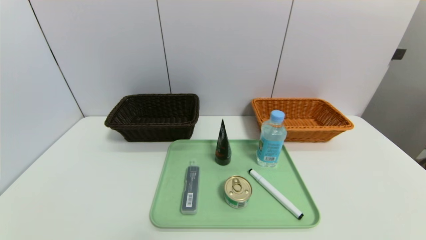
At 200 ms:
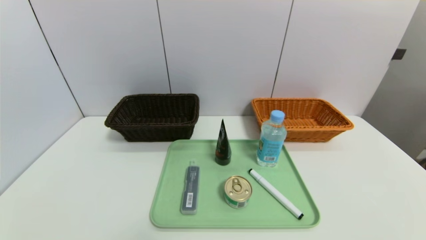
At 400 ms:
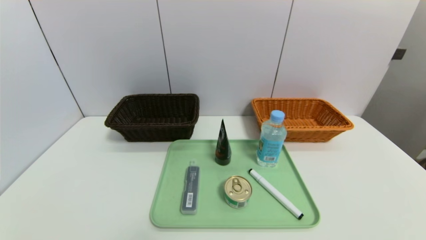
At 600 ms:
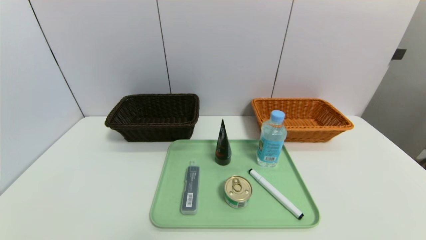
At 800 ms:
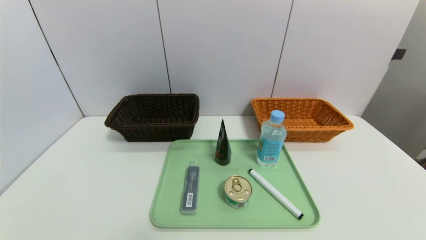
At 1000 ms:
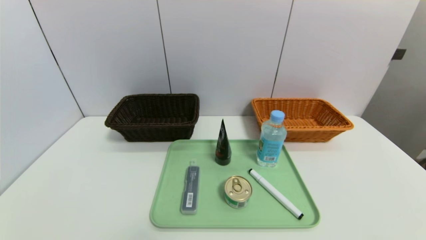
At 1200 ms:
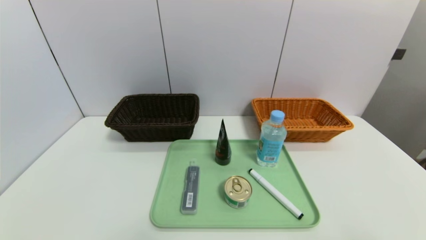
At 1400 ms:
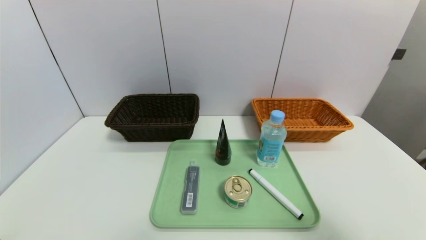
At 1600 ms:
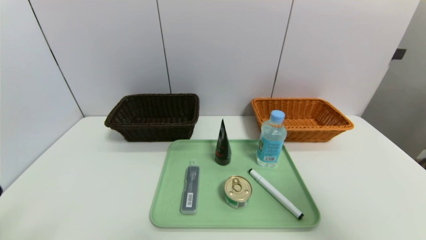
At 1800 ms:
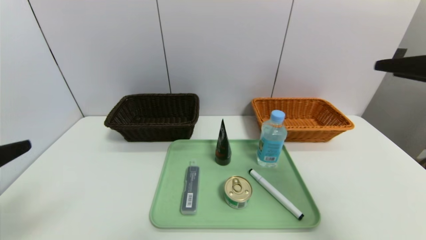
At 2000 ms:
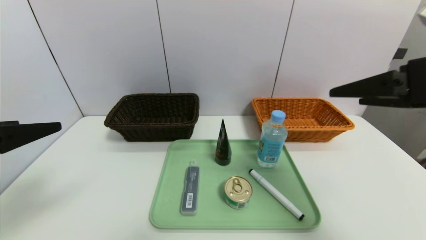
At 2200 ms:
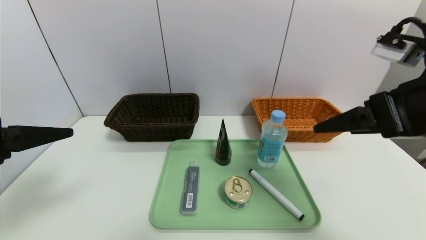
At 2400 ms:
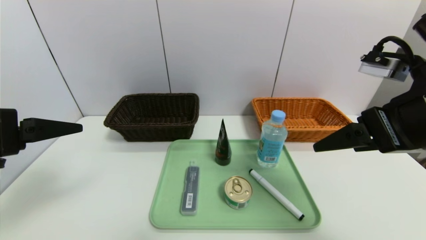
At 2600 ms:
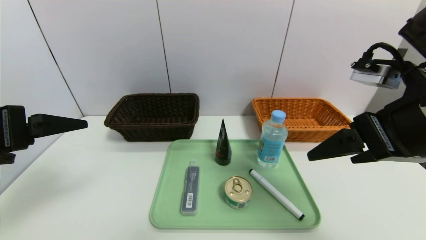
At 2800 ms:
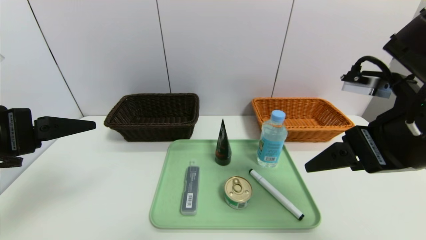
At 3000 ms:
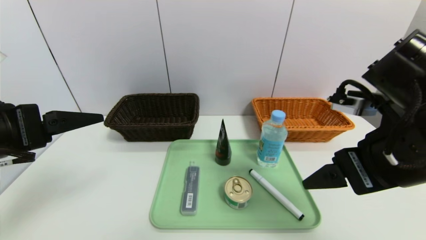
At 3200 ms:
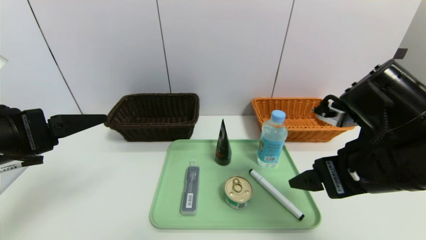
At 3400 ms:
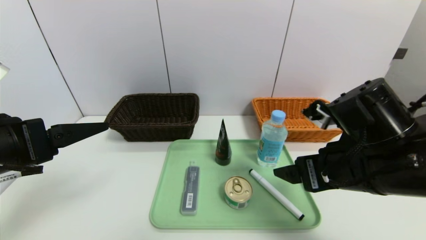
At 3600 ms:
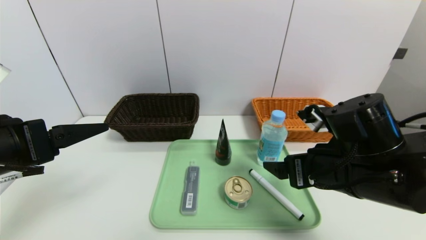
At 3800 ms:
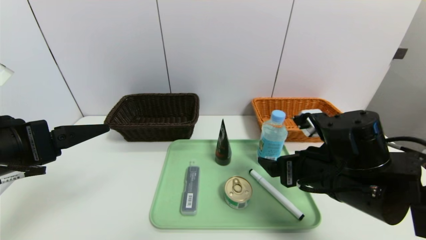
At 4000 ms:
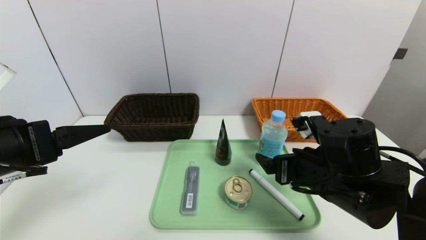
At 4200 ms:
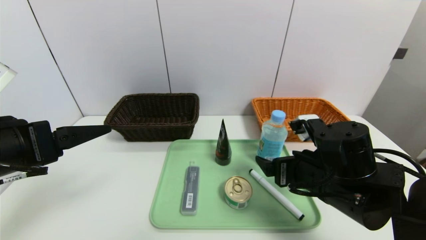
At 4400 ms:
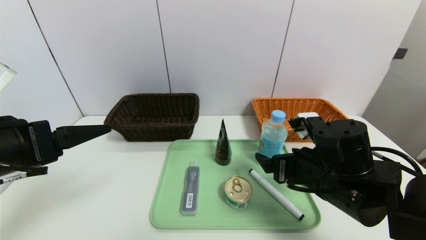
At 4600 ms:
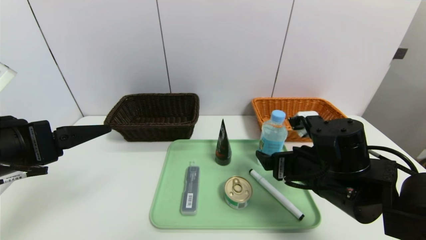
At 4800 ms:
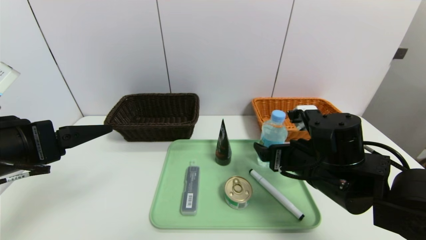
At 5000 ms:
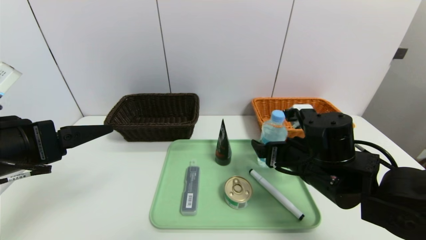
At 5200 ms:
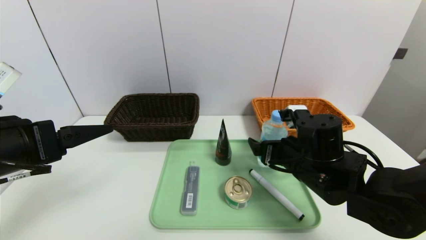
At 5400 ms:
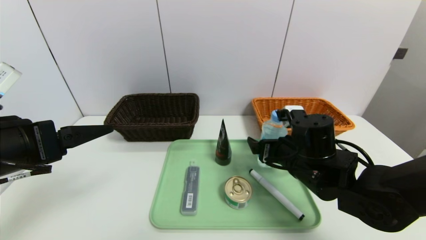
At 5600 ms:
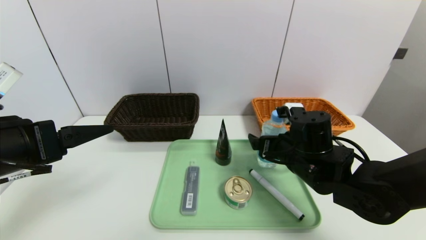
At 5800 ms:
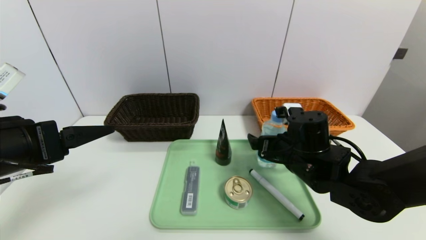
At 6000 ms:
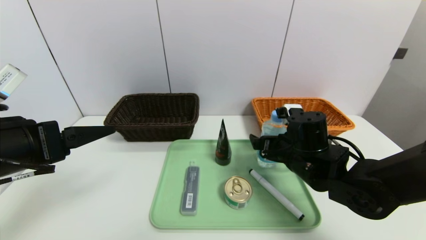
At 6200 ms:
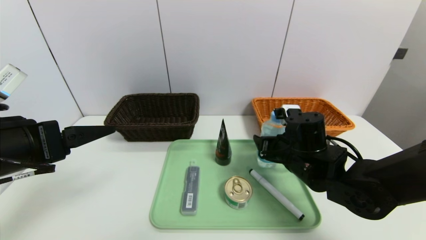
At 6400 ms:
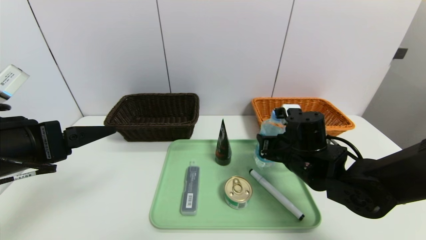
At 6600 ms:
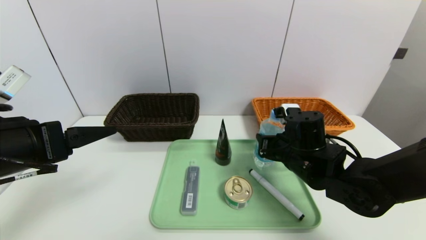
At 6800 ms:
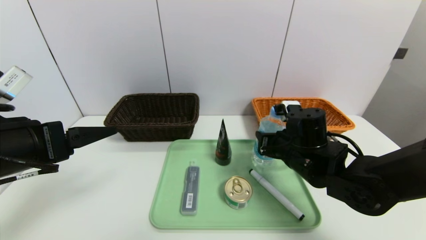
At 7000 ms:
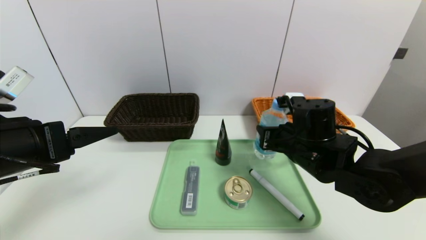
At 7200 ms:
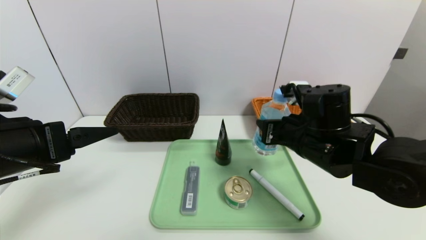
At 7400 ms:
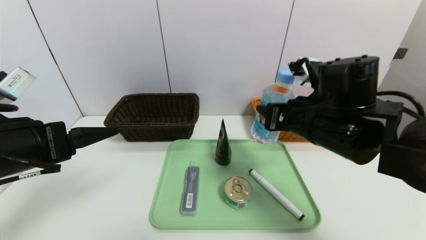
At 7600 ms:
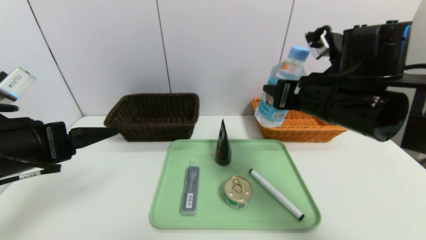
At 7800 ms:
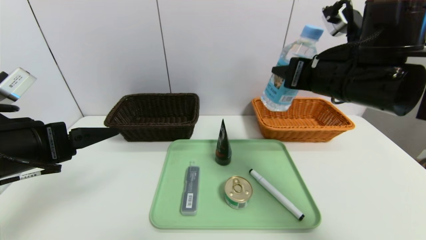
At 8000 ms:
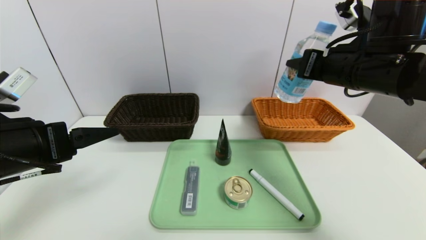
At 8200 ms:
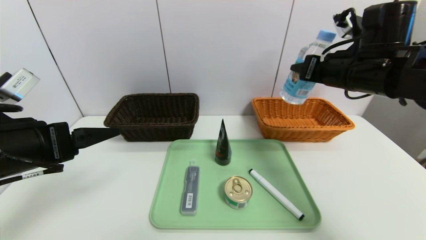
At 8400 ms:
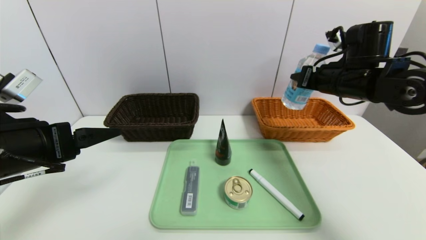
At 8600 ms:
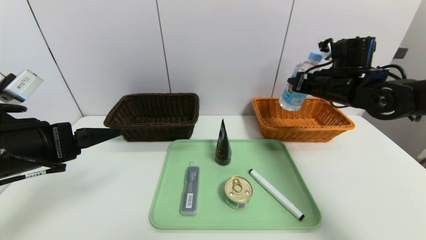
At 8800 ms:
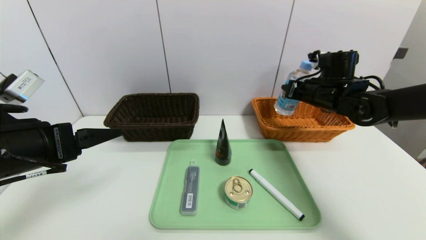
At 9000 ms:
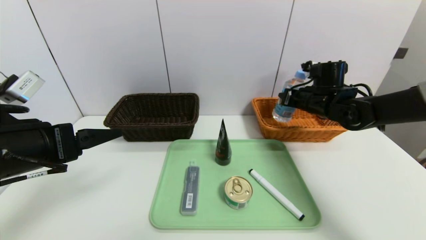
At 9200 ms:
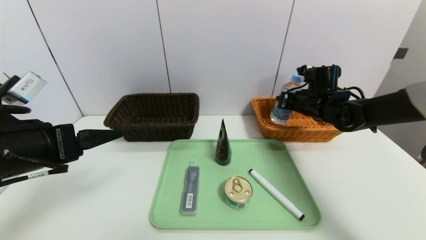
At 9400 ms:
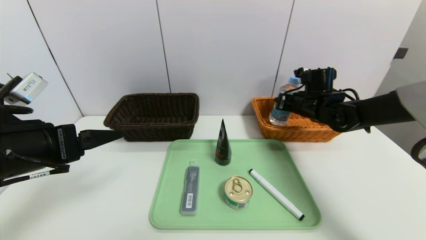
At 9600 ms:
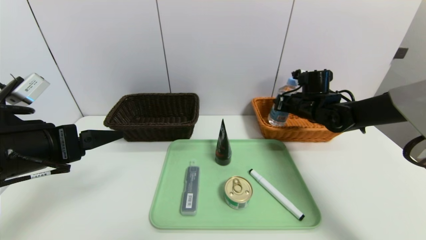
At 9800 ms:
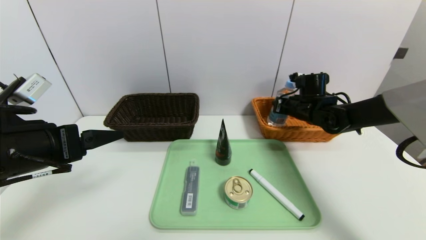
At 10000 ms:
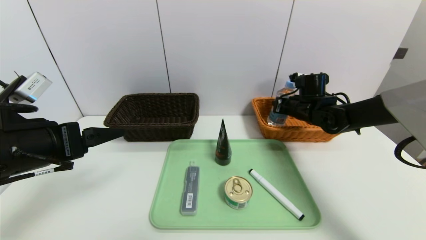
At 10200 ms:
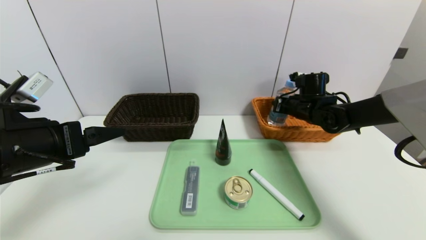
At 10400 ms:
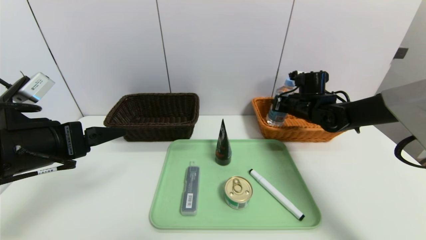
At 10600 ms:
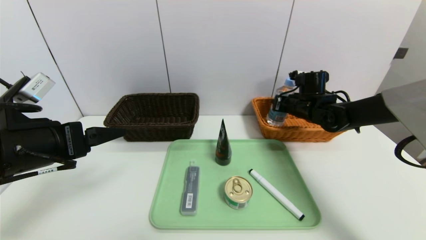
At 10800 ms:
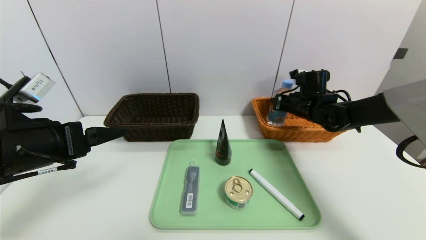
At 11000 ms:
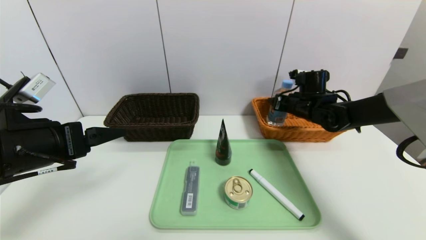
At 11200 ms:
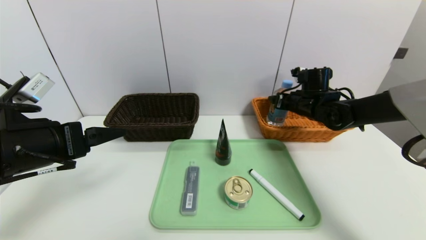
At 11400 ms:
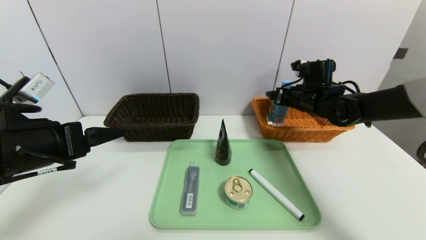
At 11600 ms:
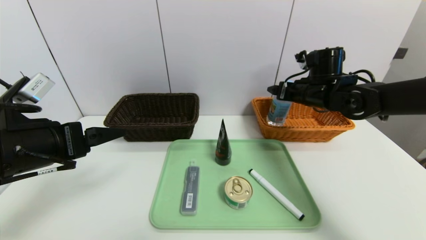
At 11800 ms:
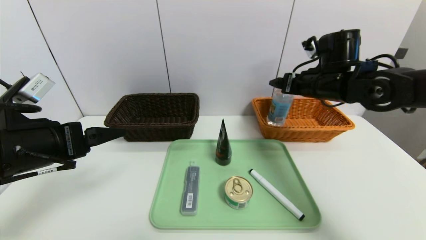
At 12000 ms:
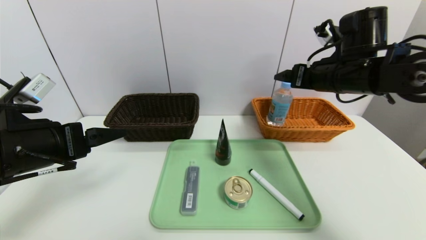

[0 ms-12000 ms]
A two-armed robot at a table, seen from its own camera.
Task of the whole recording: place the food in the right basket with the right gripper, and place the non food items in the left basket with the left gripper.
Step, 0 ms to 11600 ms: Grasp the soda water and put it in the right basket.
0 ms to 1600 ms: The right gripper travels upward and forward by about 30 cm. Meanwhile the left gripper moves upward, roughly 20 cm.
1600 ms to 3000 ms: The right gripper is displaced to the left, forward and downward by roughly 15 cm. Meanwhile the left gripper heads forward, covering roughly 15 cm.
3000 ms to 4400 ms: The right gripper moves downward, some 10 cm.
4400 ms to 6000 ms: The right gripper heads forward, covering about 5 cm.
6000 ms to 7600 ms: The right gripper travels upward by about 15 cm, and closes its fingers.
7600 ms to 9000 ms: The right gripper heads forward, downward and to the right, covering roughly 20 cm.
9000 ms to 10400 ms: There are only small adjustments of the grippers.
10400 ms to 12000 ms: The right gripper heads upward and backward, covering some 15 cm, and opens.

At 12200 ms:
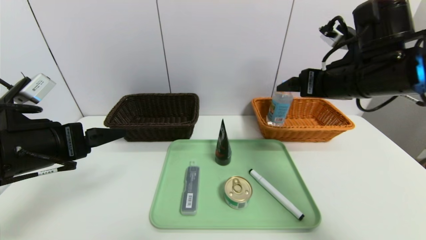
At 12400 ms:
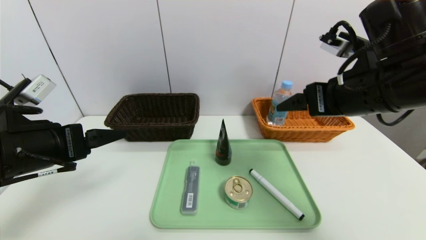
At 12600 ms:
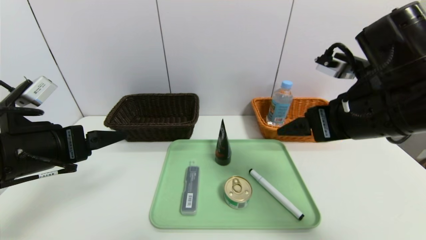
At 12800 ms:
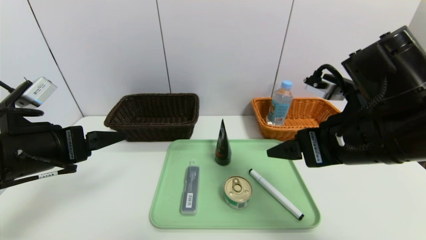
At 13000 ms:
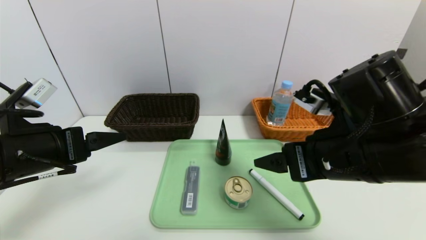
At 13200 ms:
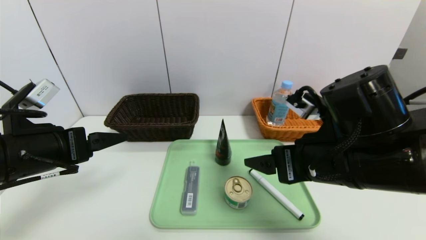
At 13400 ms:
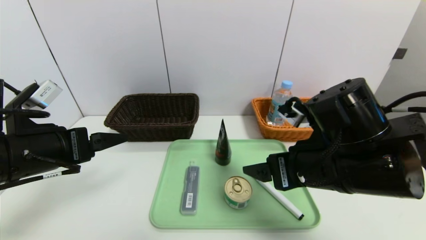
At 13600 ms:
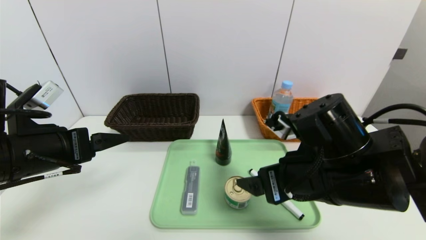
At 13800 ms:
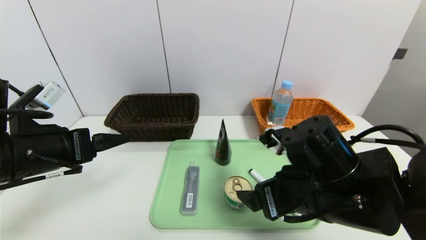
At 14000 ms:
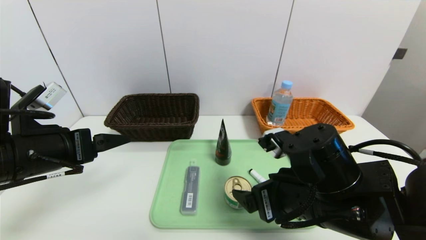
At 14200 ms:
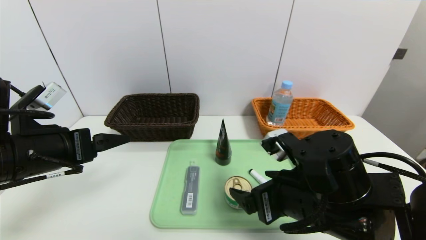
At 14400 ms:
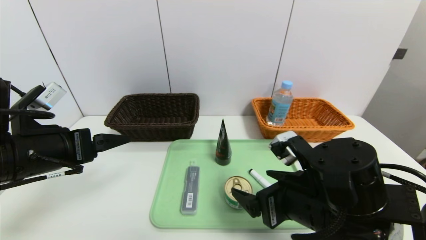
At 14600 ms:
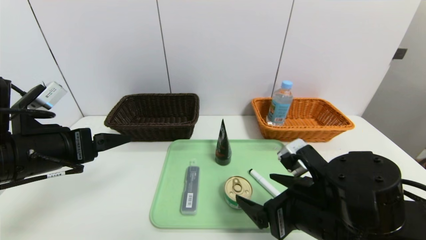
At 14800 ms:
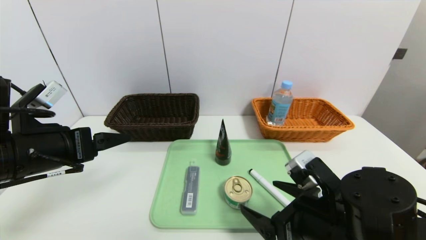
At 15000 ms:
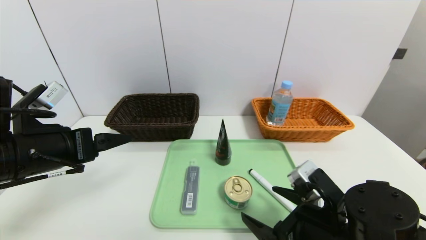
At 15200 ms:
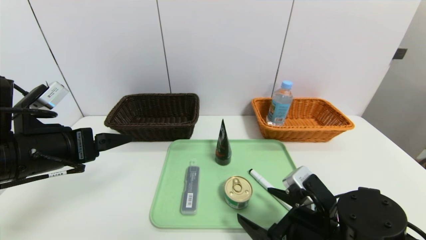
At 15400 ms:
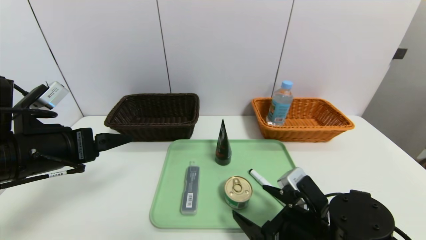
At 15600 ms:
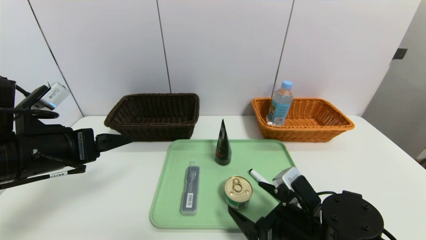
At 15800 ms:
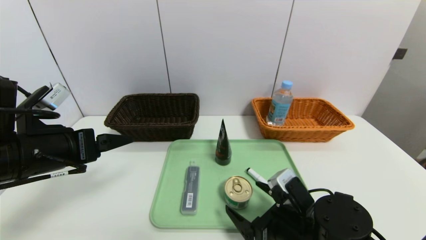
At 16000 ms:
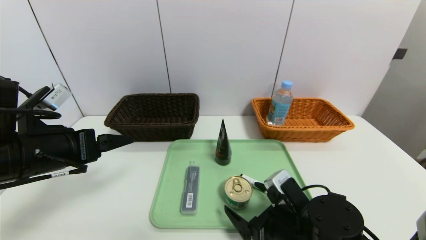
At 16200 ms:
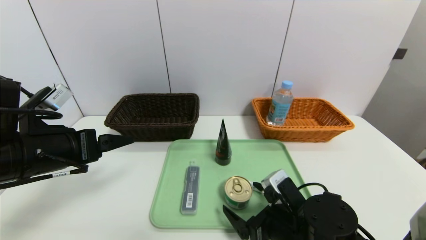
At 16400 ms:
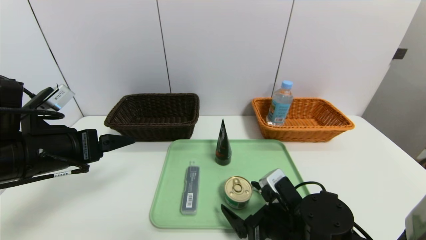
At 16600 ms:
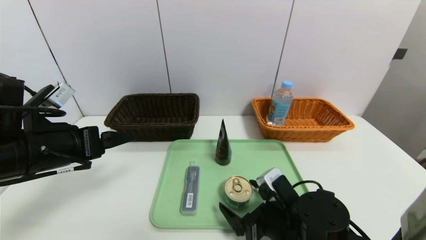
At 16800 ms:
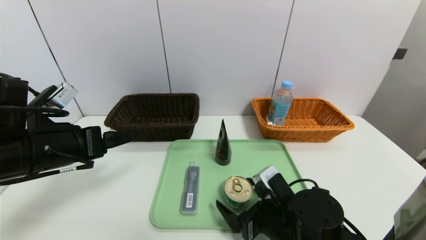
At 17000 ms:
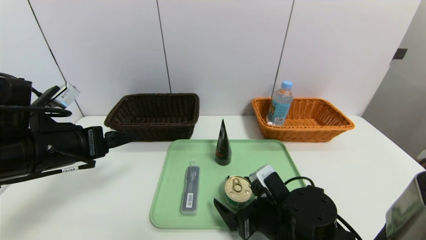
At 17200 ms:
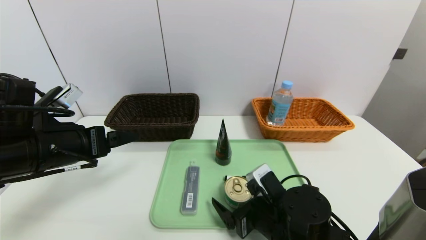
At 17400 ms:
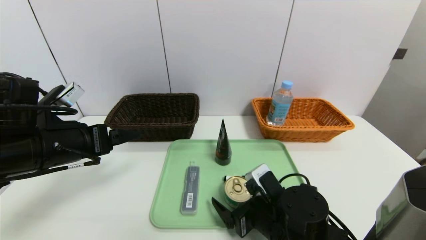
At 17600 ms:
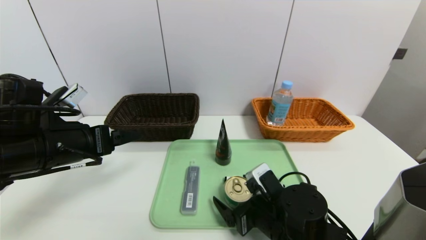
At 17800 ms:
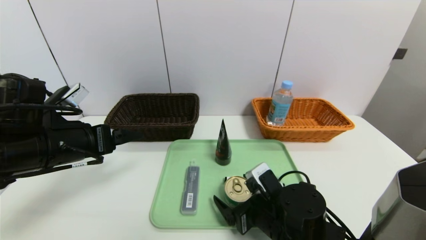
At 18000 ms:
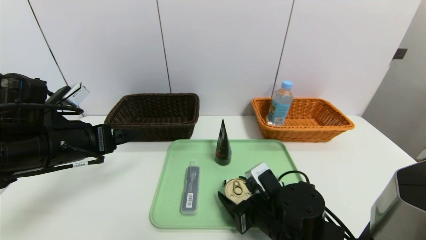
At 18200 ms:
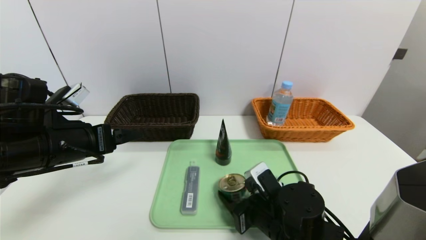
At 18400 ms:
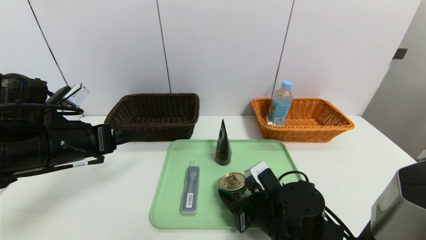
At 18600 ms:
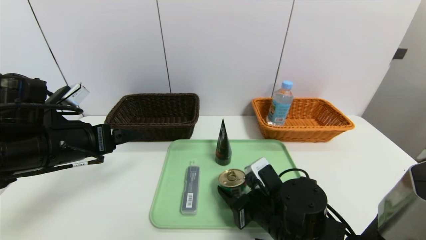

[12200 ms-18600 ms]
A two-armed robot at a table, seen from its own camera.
Task of the whole recording: place the food in the right basket with the right gripper, and place the non food items in the left basket with the left gripper.
12200 ms to 13800 ms: The right gripper moves downward, backward and to the left, approximately 15 cm.
13800 ms to 15400 ms: The right gripper is displaced downward by about 10 cm.
15400 ms to 17000 ms: The right gripper changes place by roughly 5 cm.
17000 ms to 18600 ms: The right gripper closes up.
